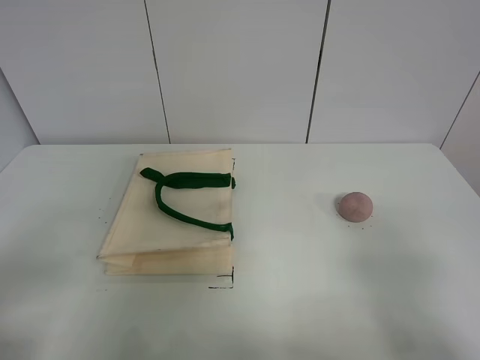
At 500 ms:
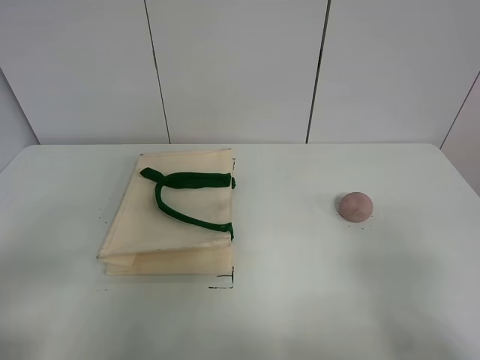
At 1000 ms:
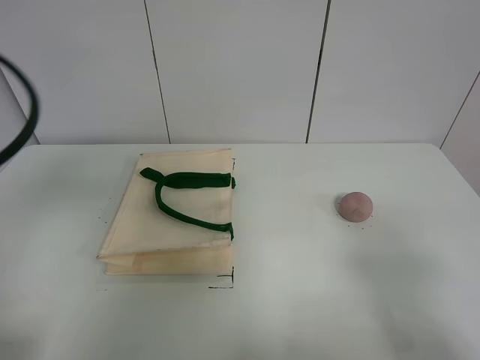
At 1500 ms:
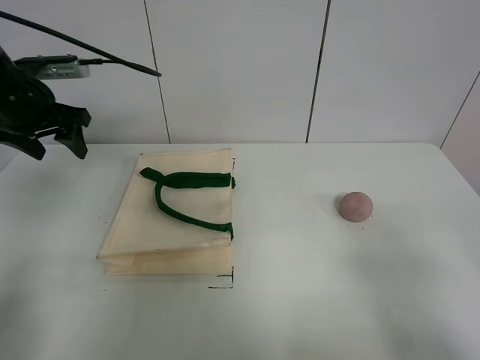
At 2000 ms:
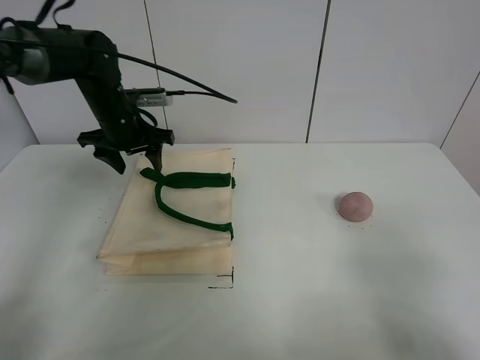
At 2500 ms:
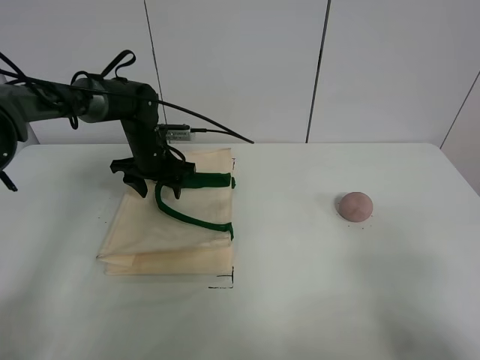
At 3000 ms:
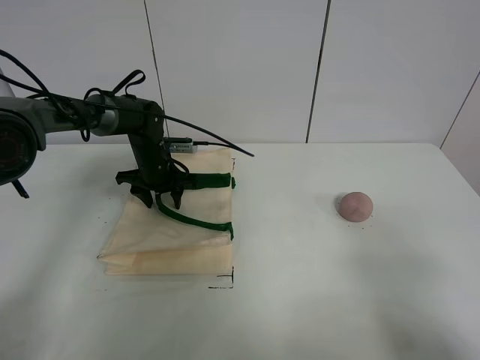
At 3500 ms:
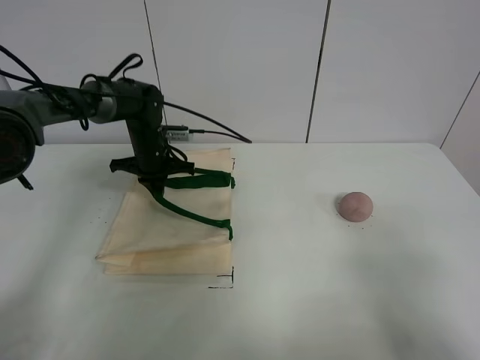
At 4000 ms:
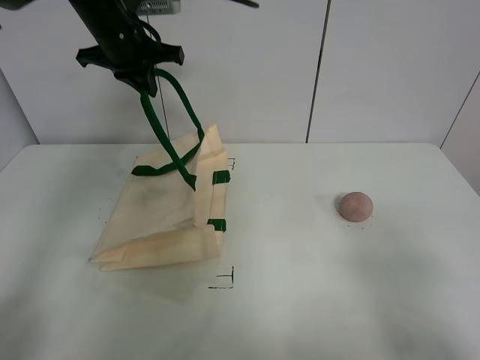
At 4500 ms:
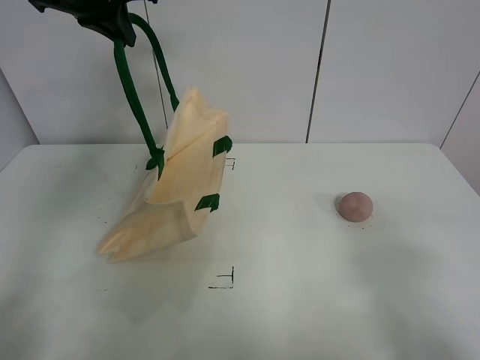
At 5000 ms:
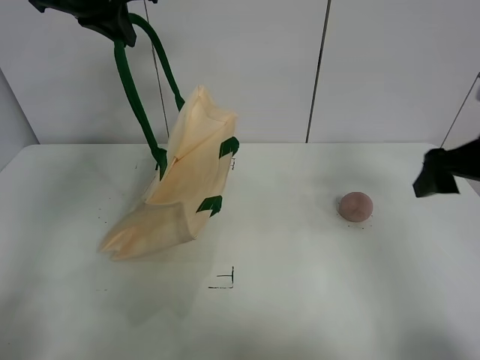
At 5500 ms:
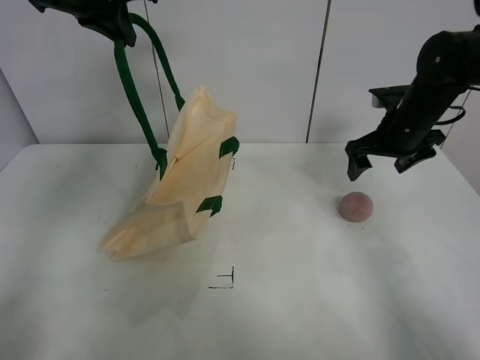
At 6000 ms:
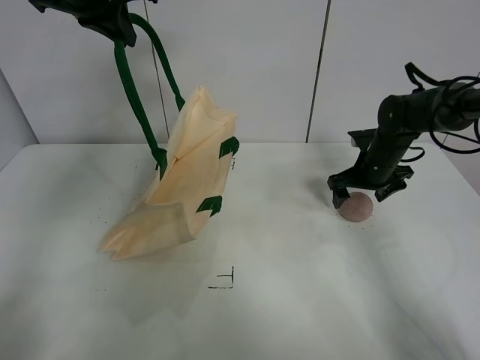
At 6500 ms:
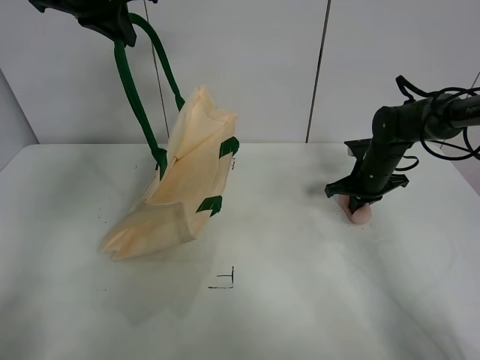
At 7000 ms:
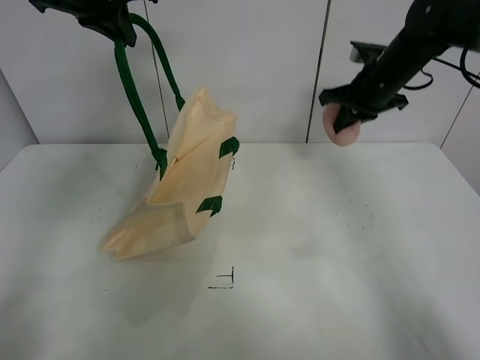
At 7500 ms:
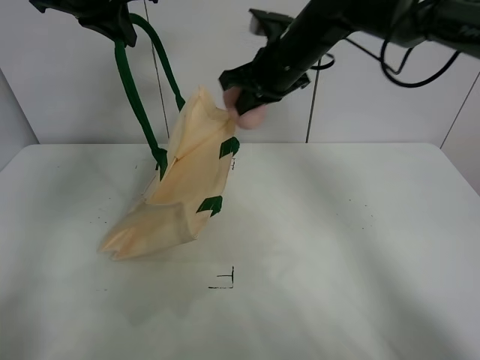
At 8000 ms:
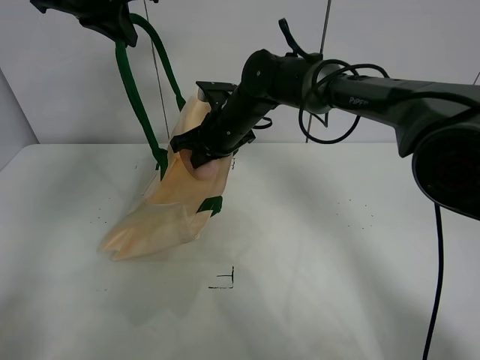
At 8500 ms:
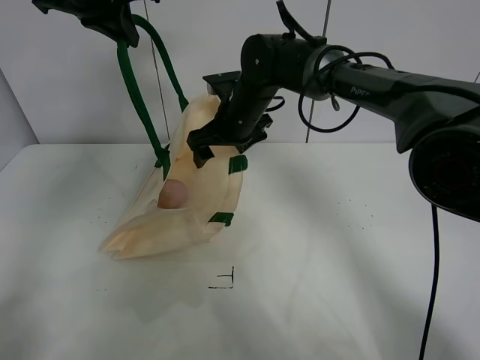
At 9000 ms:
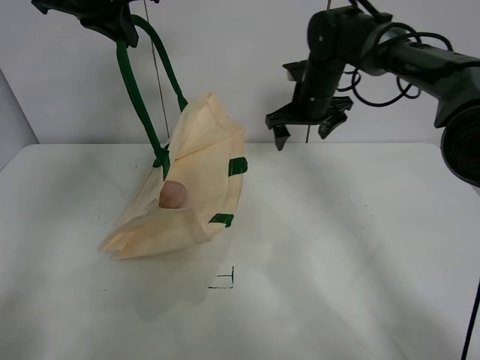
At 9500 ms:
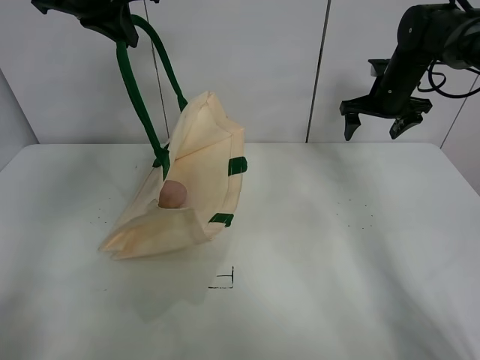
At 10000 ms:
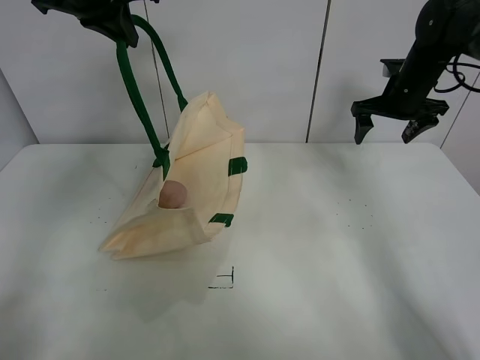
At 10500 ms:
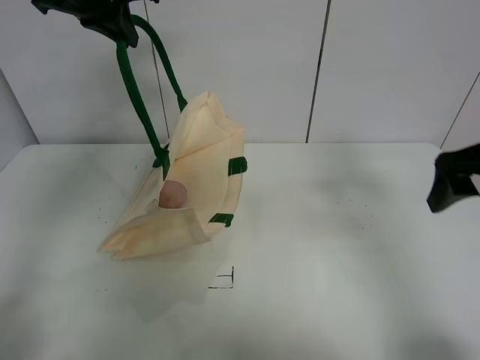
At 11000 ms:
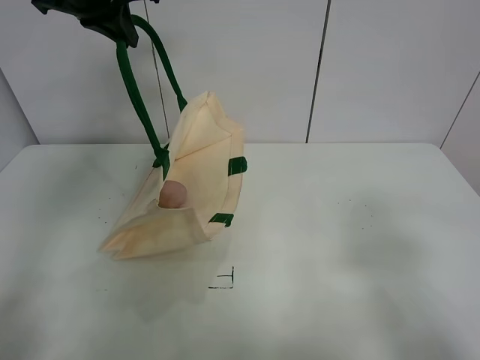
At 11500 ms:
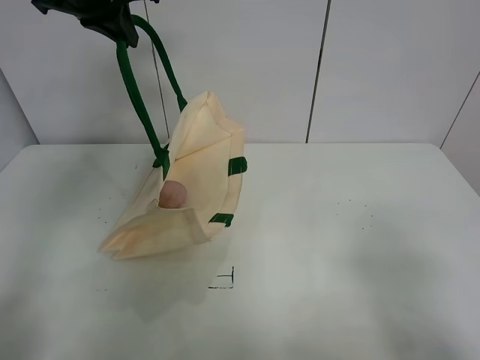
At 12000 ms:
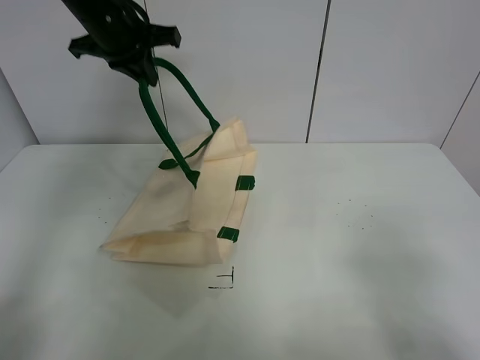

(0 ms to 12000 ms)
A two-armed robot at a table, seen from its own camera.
Task of the whole recording: open the white linen bag and put the peach in the bag.
Step, 0 ms - 4000 ms: Lift the handbag with left gripper.
Step, 4500 ms - 6000 ms: Grasp the peach with right gripper.
Step, 6500 ms - 8500 ms: Place the peach in the handbag with right gripper.
0 ms - 2000 ms: The left gripper moves forward, some 40 cm.
2000 ms - 4000 ms: The left gripper heads upward, covering roughly 15 cm, and closes its fingers.
4000 ms - 6000 ms: The left gripper heads upward, covering approximately 5 cm. The right gripper goes some 40 cm forward.
6000 ms - 8000 ms: The right gripper goes approximately 25 cm to the left, and closes up.
8000 ms - 10000 ms: The right gripper is displaced to the right by about 30 cm, and opens up.
10000 ms - 12000 ms: The right gripper moves backward, some 50 cm; the left gripper travels downward by roughly 10 cm.

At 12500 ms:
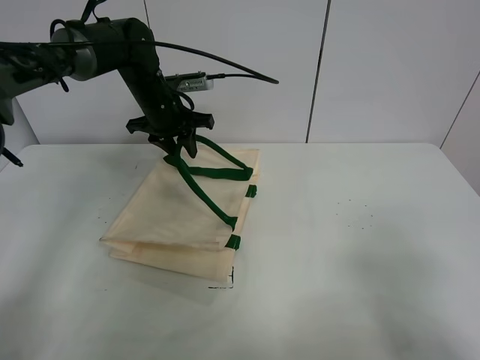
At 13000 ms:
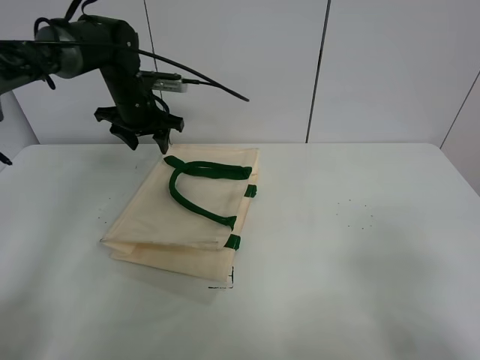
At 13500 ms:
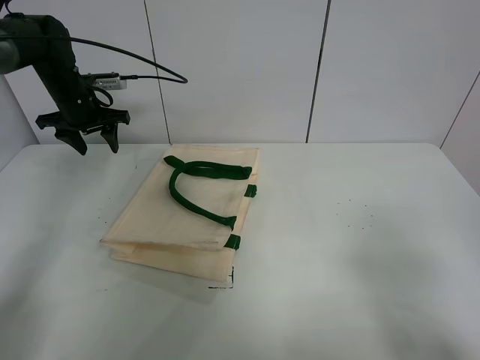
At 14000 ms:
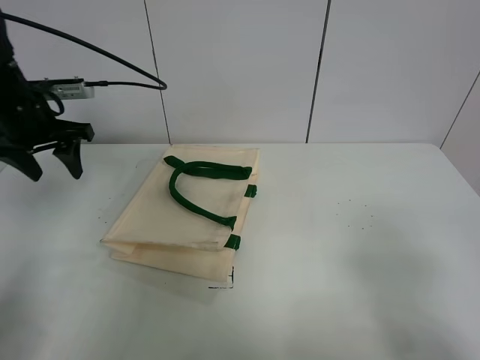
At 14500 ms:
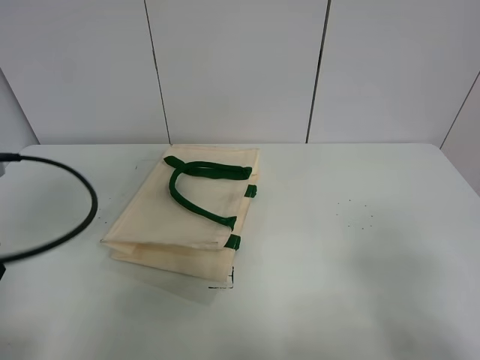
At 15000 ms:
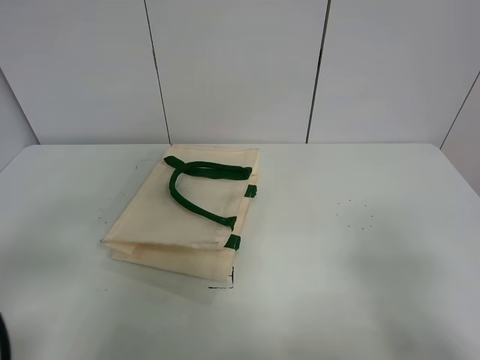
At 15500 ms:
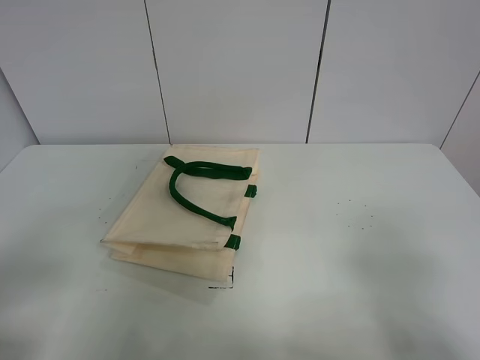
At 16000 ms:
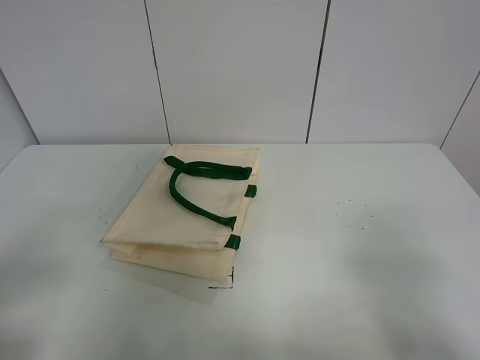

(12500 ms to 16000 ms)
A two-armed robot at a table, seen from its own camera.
Task of the whole recording: open the white linen bag and put the peach in the bag.
12500 ms - 14500 ms: The left gripper travels backward and to the left by about 35 cm.
14500 ms - 16000 ms: The left gripper travels backward by approximately 15 cm.

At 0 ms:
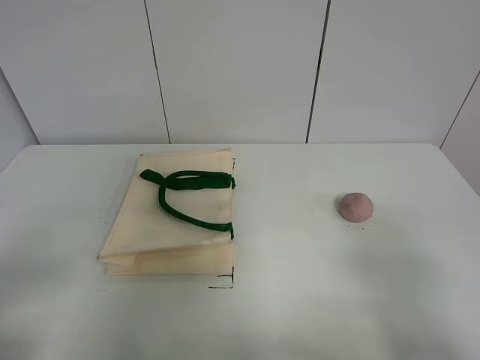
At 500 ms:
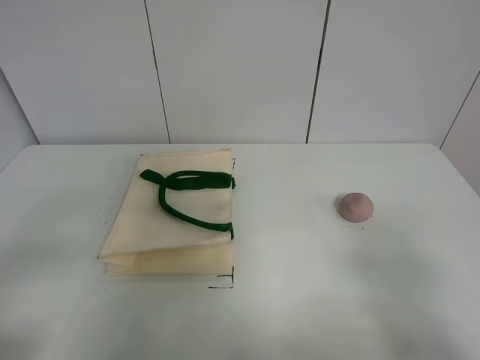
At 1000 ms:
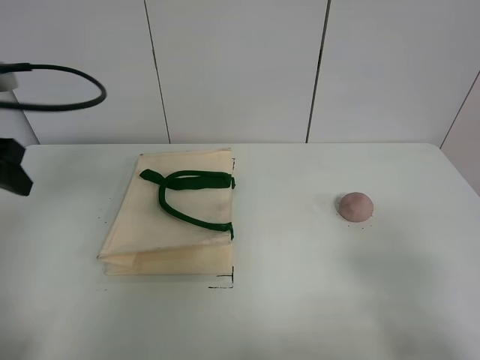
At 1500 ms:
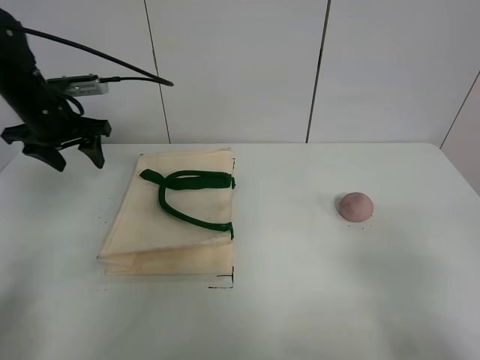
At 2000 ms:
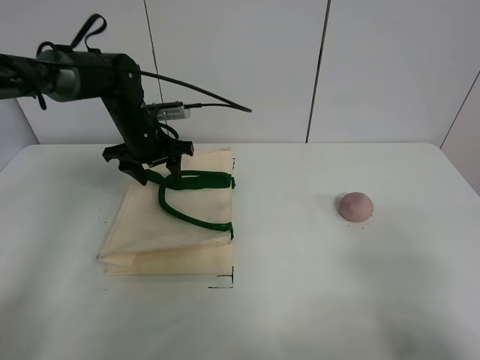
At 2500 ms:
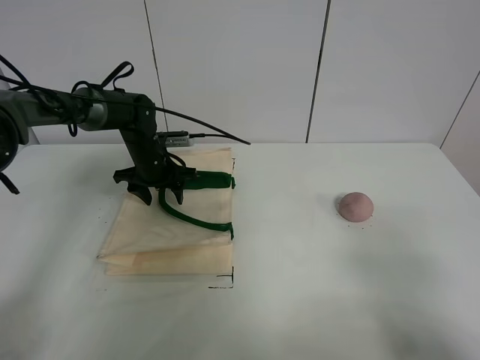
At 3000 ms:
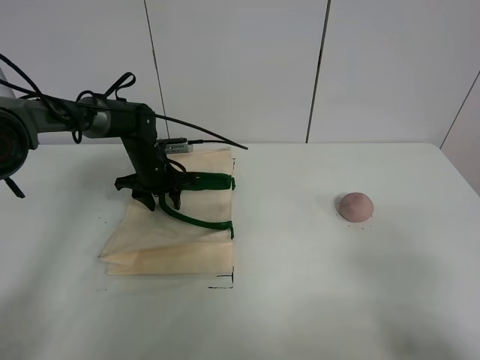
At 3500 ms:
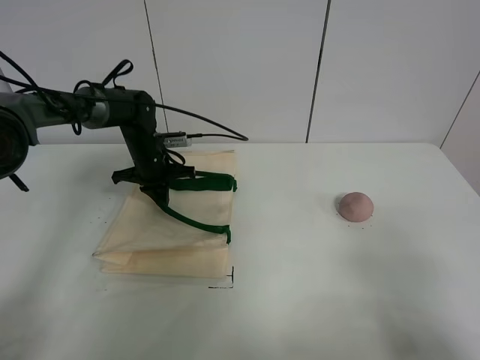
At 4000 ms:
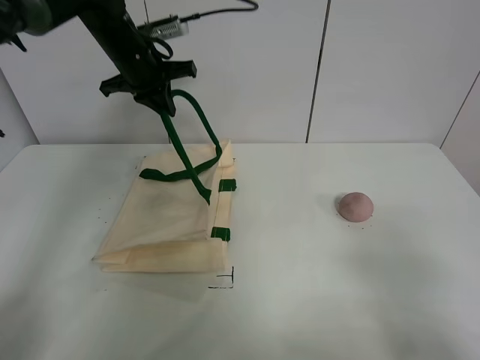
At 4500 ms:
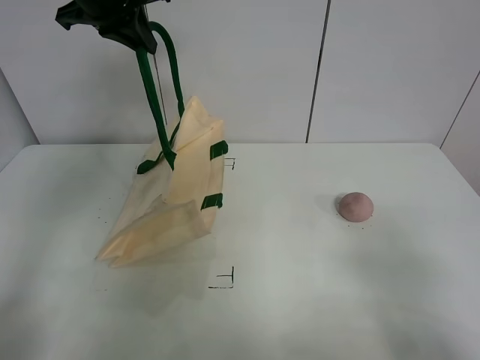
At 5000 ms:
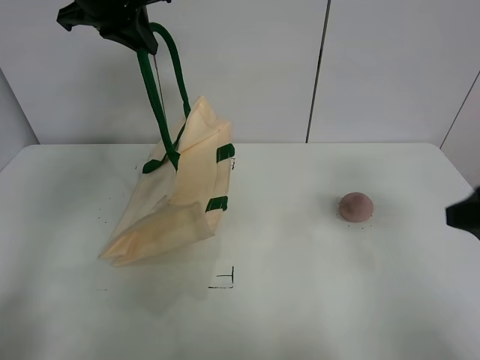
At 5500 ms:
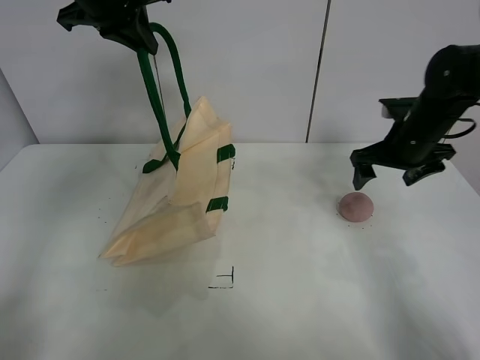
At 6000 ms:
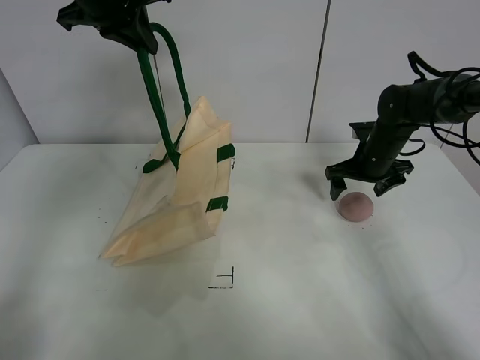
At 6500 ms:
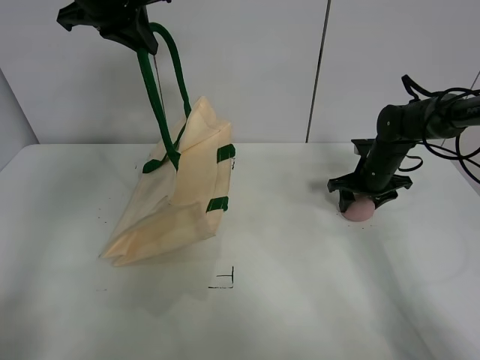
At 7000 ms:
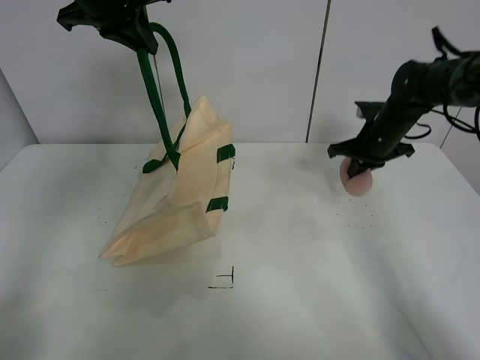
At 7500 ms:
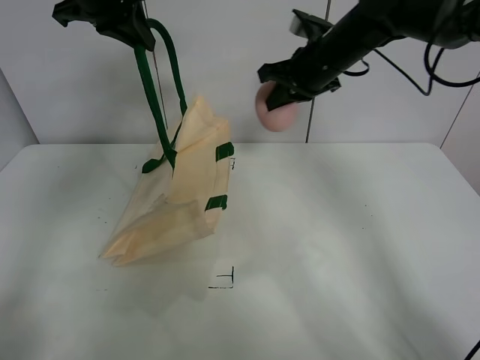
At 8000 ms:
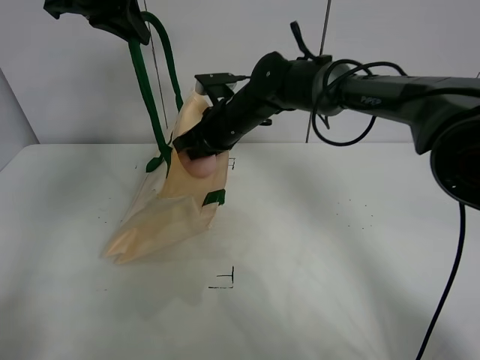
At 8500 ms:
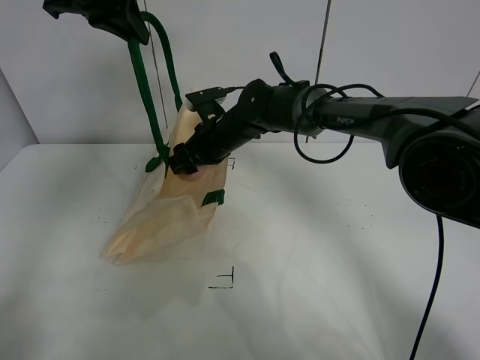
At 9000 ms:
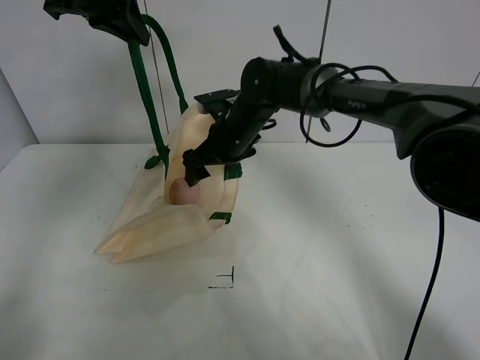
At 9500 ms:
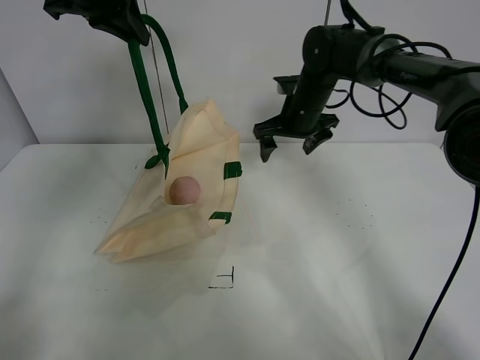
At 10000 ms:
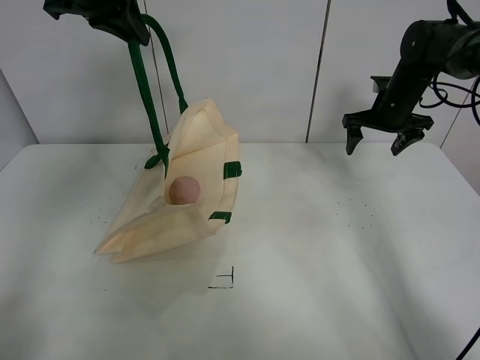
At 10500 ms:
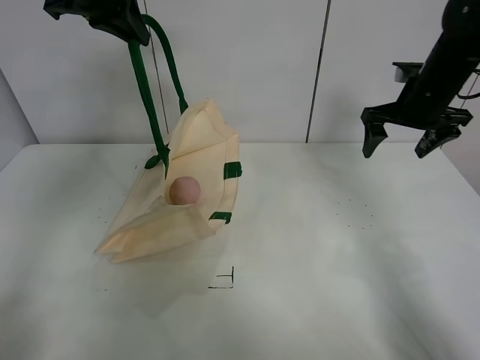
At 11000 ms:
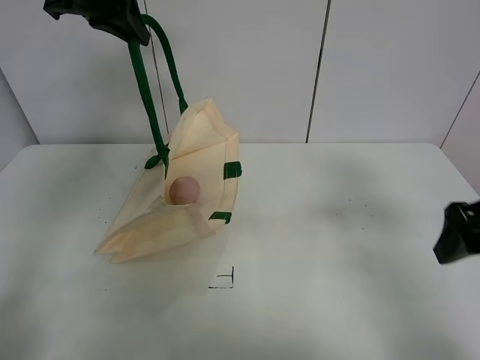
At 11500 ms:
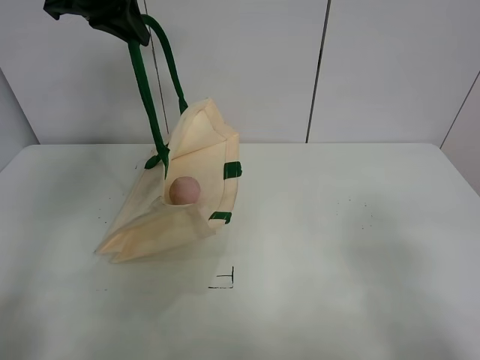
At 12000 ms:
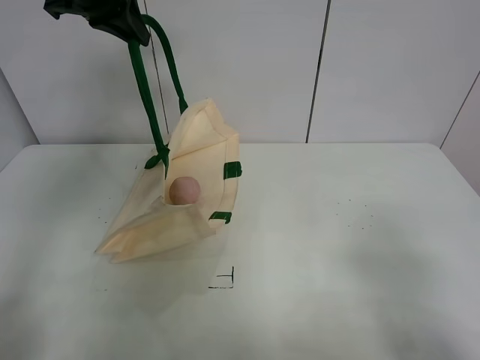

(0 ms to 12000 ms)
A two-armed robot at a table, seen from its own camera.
Task of the whole recording: open the white linen bag and put the peach in the bag.
Step, 0 ms - 4500 ms: Lift the handbag with left gripper.
Step, 5000 ms - 6500 ms: Grasp the peach with right gripper.
Step, 7000 ms - 9000 ms: Place the peach in the handbag with right gripper.
0 ms - 2000 ms: The left gripper heads forward, covering approximately 40 cm.
2000 ms - 4000 ms: The left gripper moves upward, some 15 cm, and closes up.
4000 ms - 6000 ms: The left gripper moves upward and backward, roughly 10 cm. Meanwhile the right gripper moves forward, about 40 cm.
6000 ms - 8000 ms: The right gripper shifts approximately 25 cm to the left, and closes.
8000 ms - 10000 ms: The right gripper goes about 30 cm to the right, and opens.
10000 ms - 12000 ms: The right gripper heads backward, covering roughly 50 cm.
